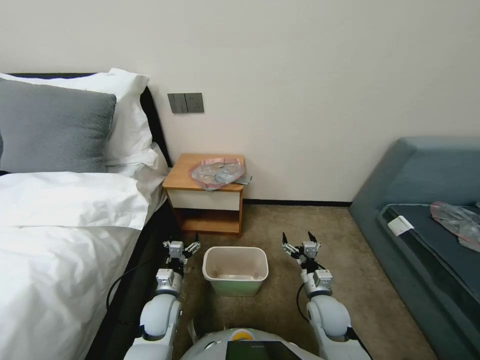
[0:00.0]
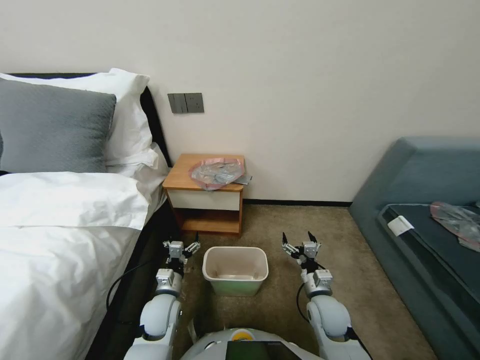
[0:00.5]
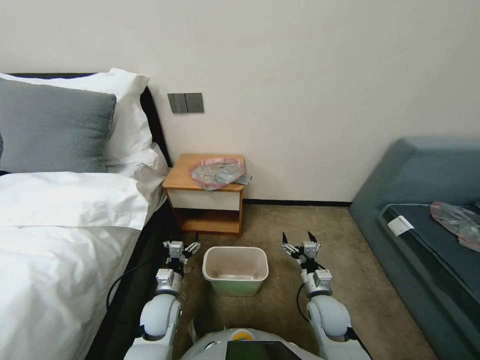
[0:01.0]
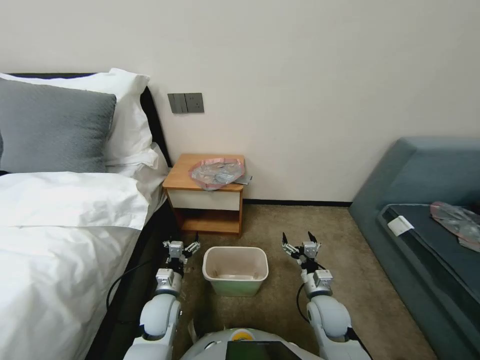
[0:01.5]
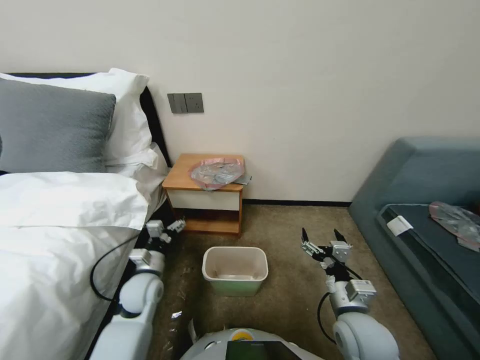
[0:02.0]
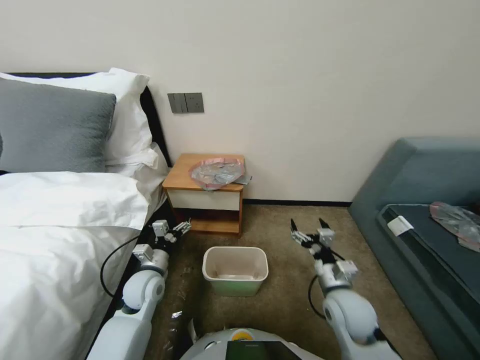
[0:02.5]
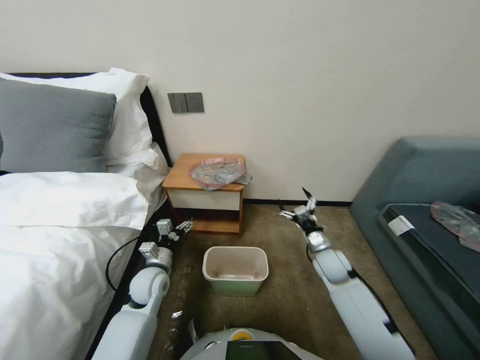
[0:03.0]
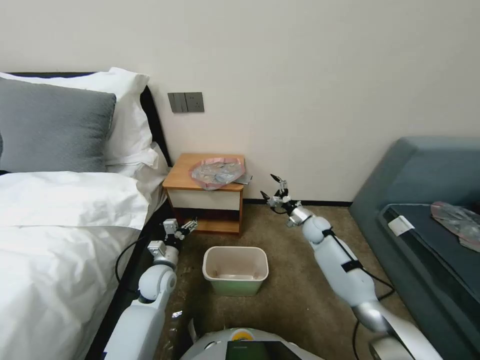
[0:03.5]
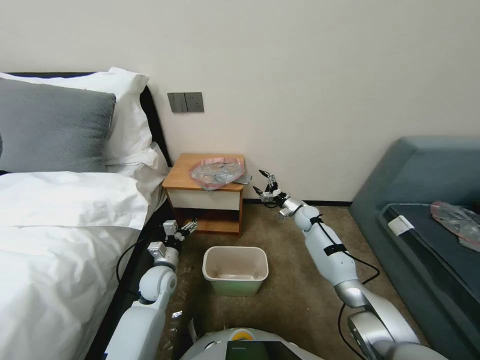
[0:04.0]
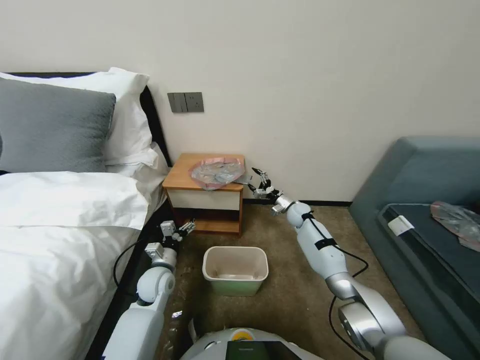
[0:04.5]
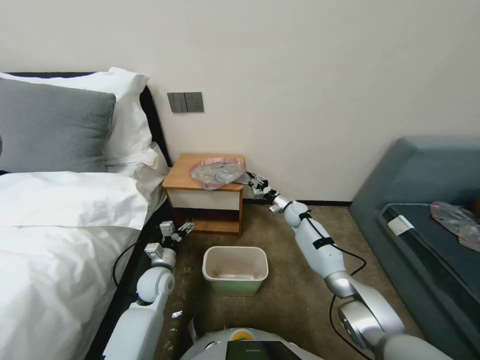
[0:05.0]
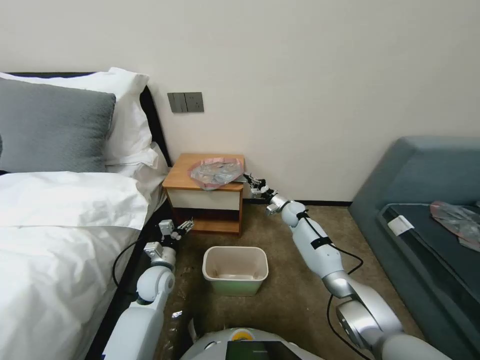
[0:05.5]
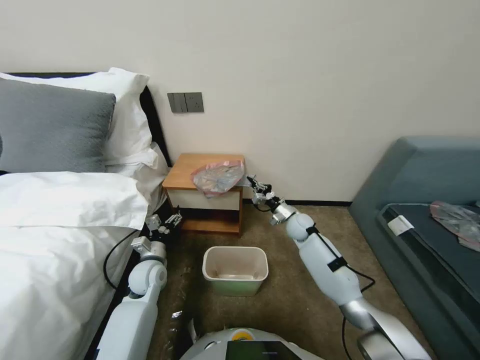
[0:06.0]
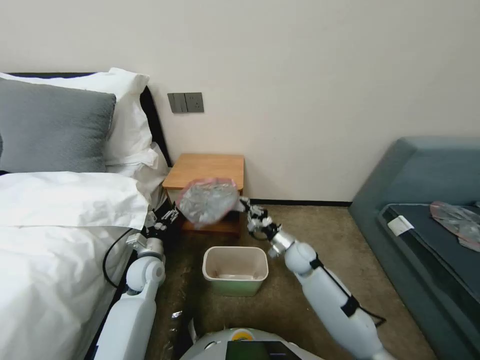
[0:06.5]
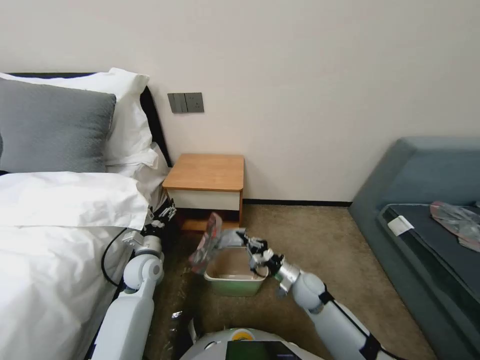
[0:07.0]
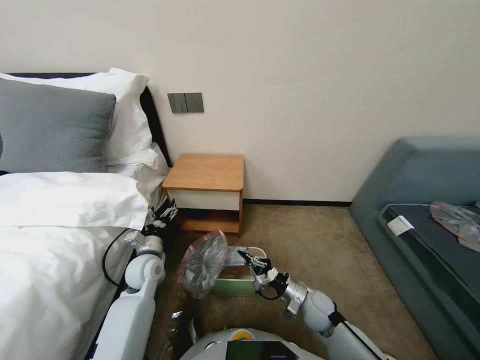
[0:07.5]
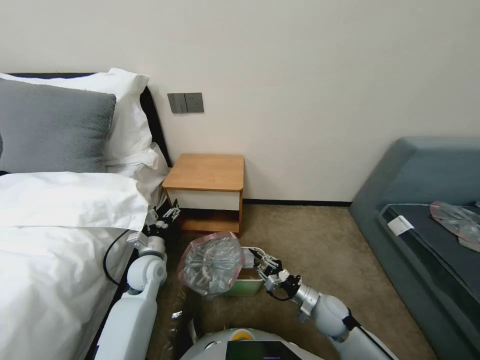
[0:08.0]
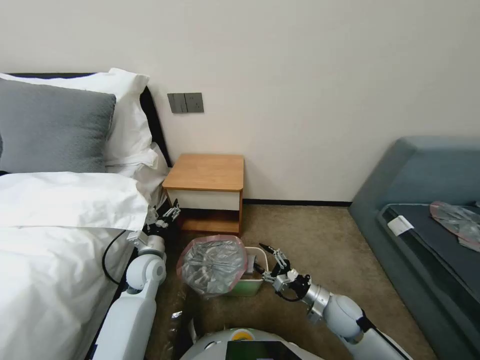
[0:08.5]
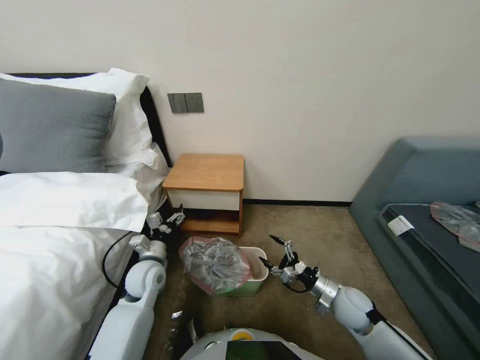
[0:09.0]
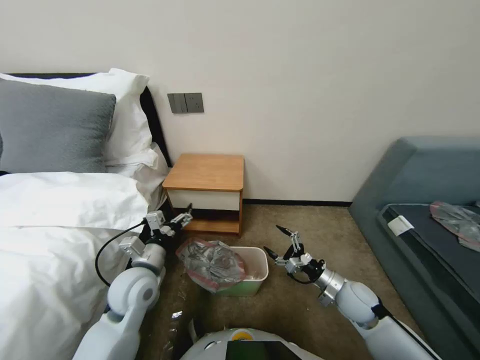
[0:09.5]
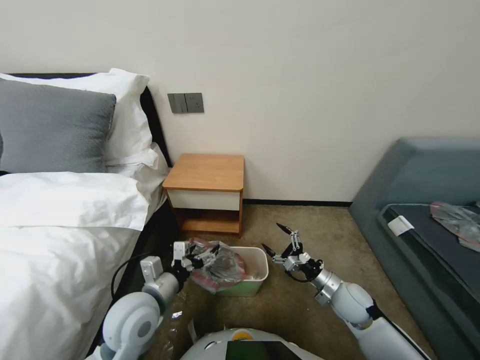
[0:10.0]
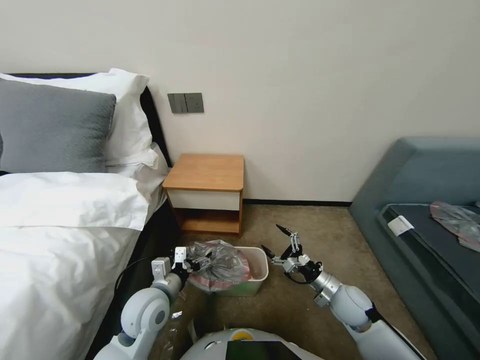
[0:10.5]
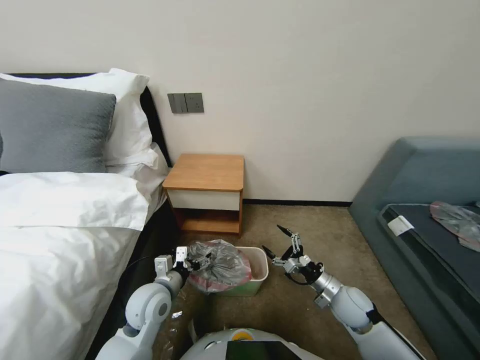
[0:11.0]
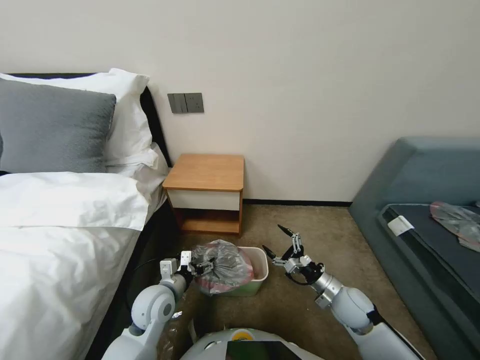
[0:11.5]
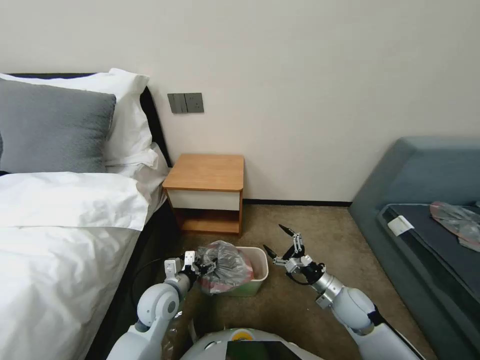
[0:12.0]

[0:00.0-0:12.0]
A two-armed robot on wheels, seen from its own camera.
Task of the whole recording: Pick up the garbage bag from the table and place it over the trash can.
0:02.0 to 0:04.0: The right gripper heads forward, covering roughly 35 cm.
0:04.0 to 0:06.0: The right gripper is displaced to the left by approximately 5 cm, and closes.
0:06.0 to 0:08.0: The right gripper is displaced backward by approximately 25 cm.
0:08.0 to 0:10.0: The right gripper travels to the right and upward by about 10 cm, and opens its fingers. The left gripper shifts roughly 15 cm backward, upward and to the right.
0:10.0 to 0:12.0: The left gripper shifts some 10 cm downward.

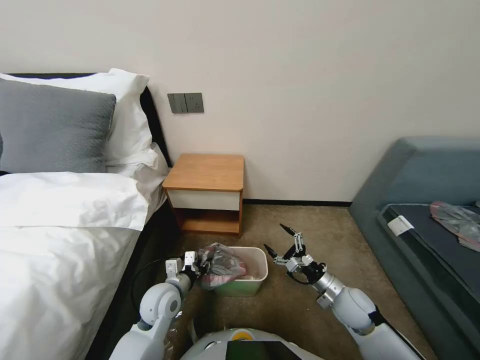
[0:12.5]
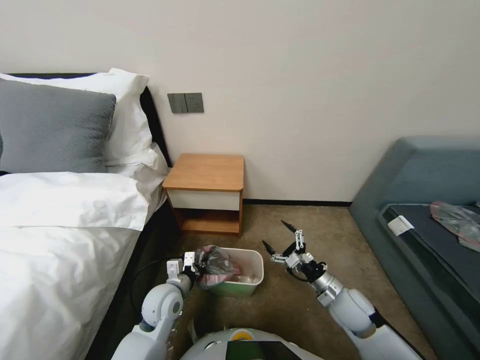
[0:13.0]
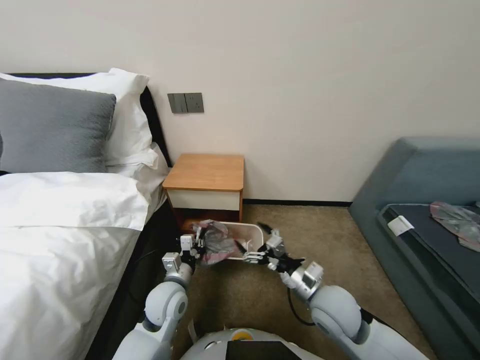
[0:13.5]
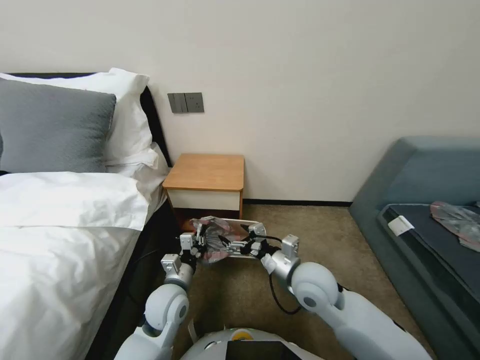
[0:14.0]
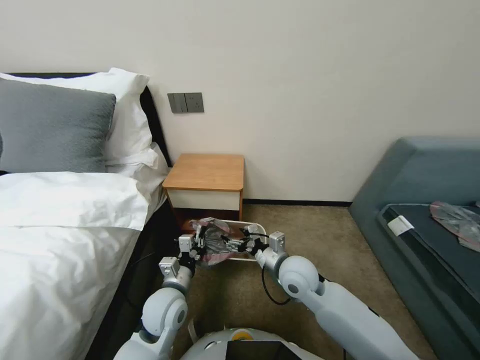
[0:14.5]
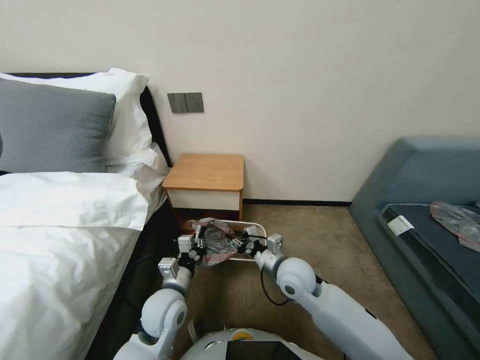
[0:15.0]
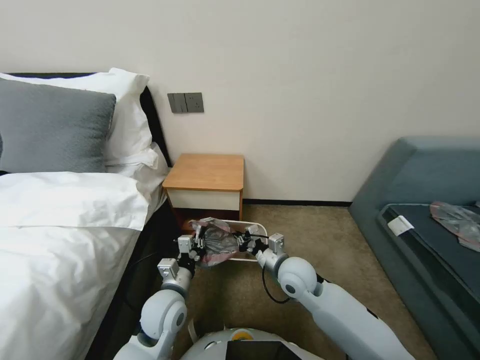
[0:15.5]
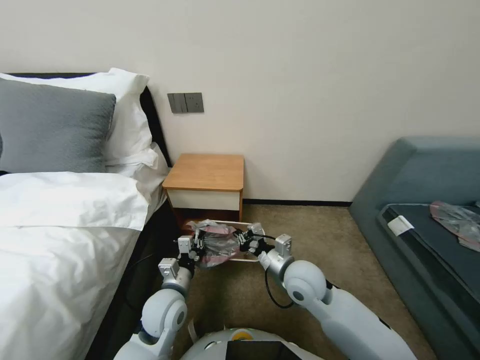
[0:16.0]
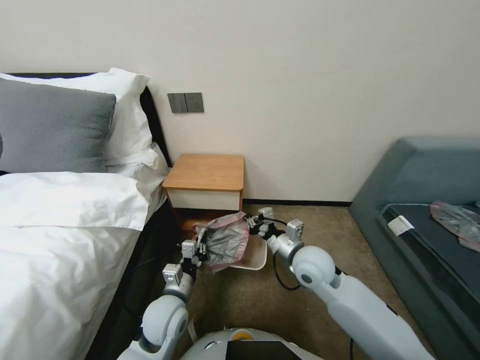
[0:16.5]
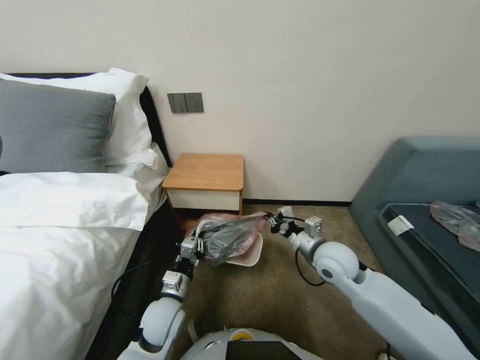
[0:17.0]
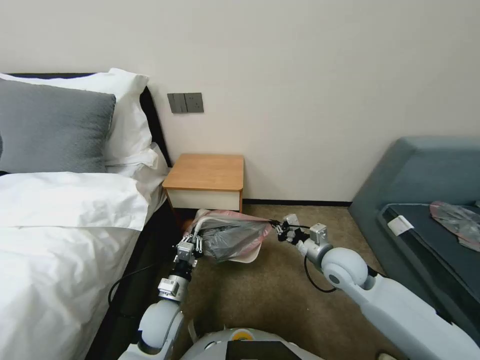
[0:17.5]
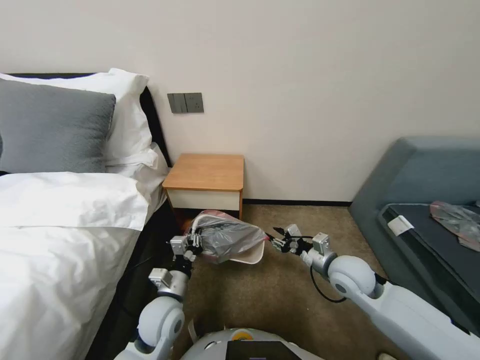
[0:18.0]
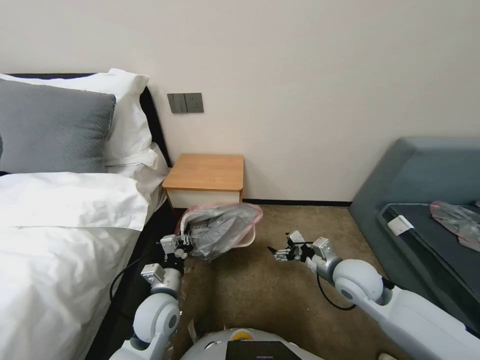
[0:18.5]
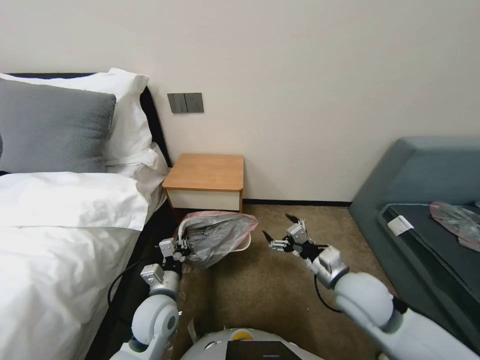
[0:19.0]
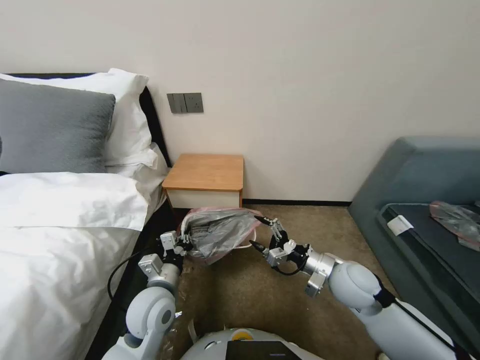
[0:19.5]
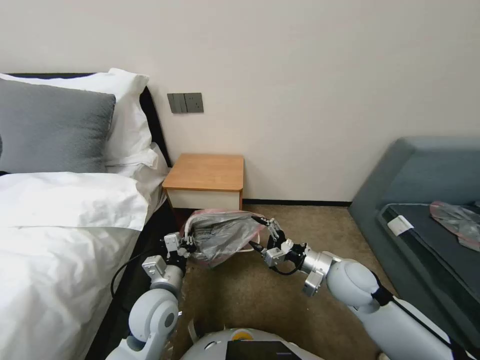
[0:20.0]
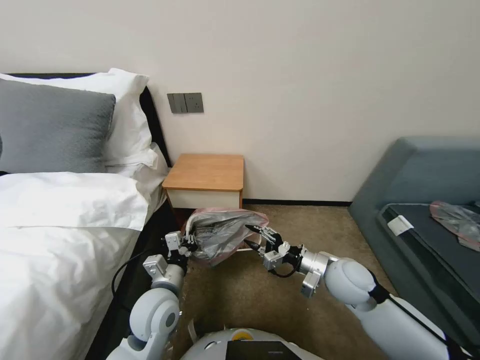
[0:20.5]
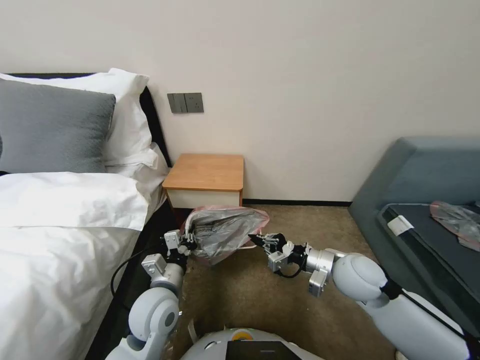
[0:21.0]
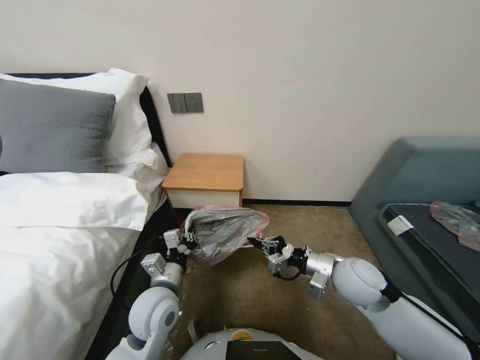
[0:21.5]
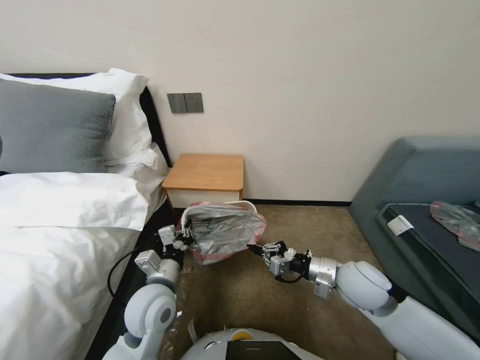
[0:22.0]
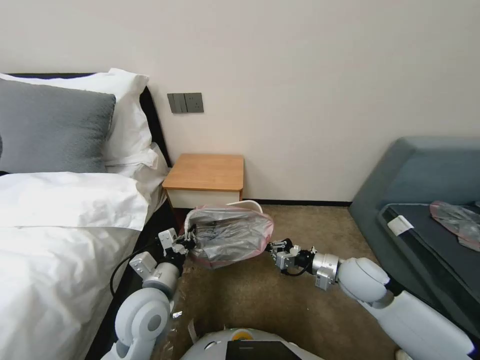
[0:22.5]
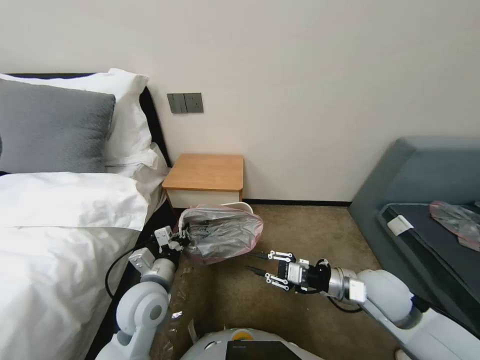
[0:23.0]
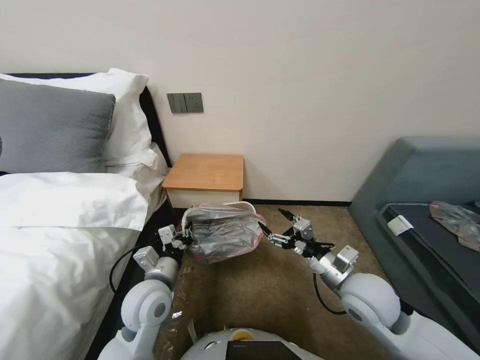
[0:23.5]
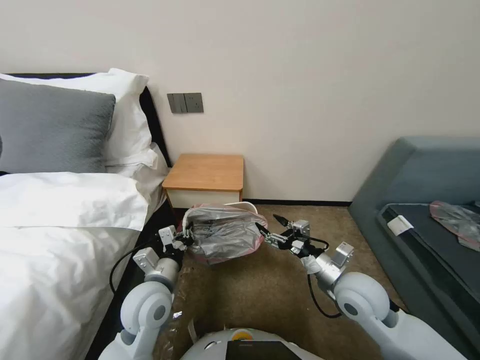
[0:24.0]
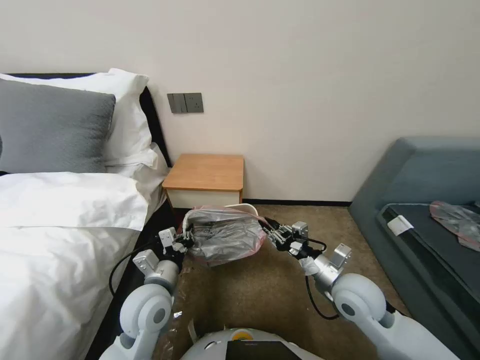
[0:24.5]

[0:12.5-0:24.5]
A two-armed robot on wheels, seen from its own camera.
Task of the whole recording: Pick up the garbage bag from the table and place it over the trash can.
0:12.5 to 0:14.5: The left gripper closes up, while the right gripper goes approximately 20 cm to the left and upward.
0:14.5 to 0:16.5: The right gripper closes.
0:16.5 to 0:18.5: The right gripper heads to the right, covering about 10 cm, and opens up.
0:20.5 to 0:22.5: The right gripper closes its fingers.
0:22.5 to 0:24.5: The right gripper ends up about 5 cm from where it was, and opens up.

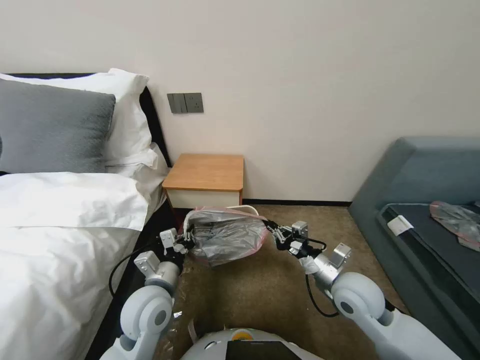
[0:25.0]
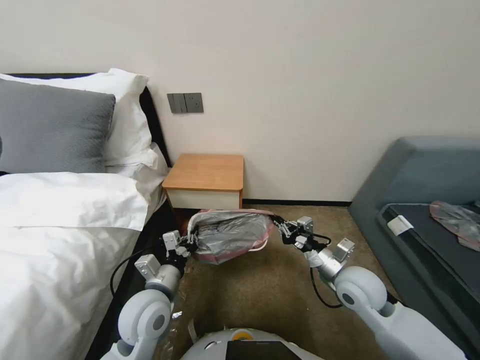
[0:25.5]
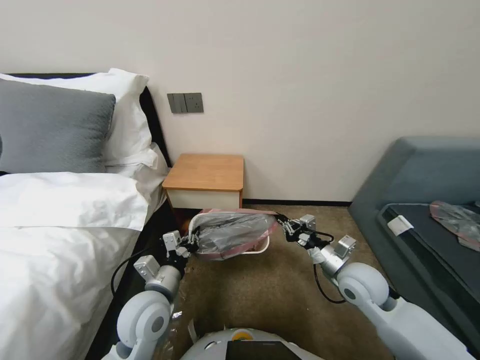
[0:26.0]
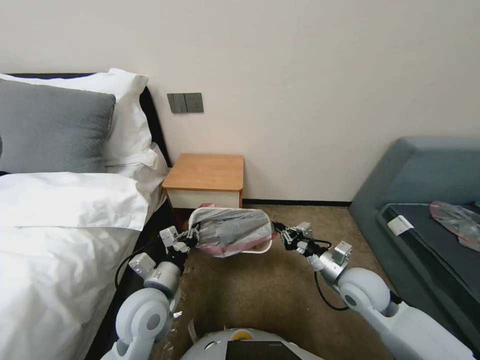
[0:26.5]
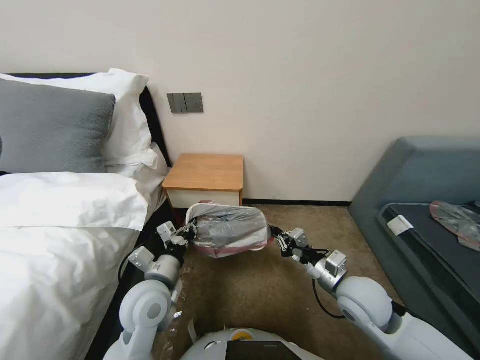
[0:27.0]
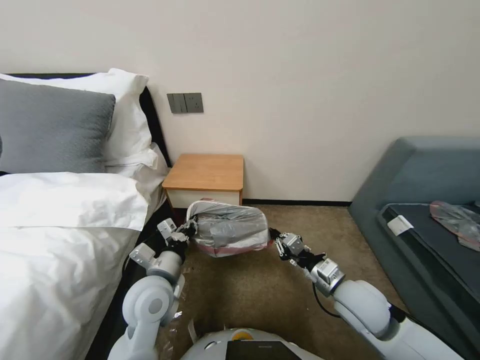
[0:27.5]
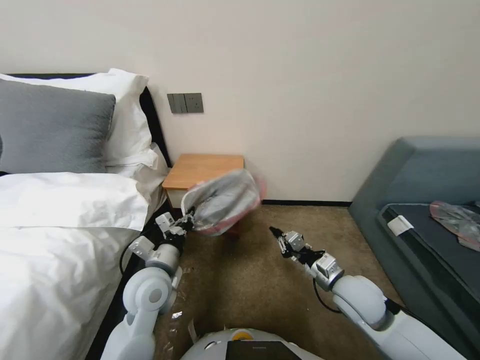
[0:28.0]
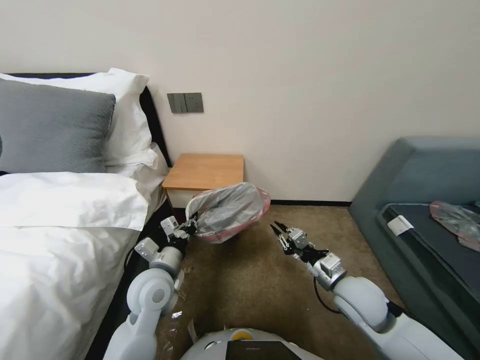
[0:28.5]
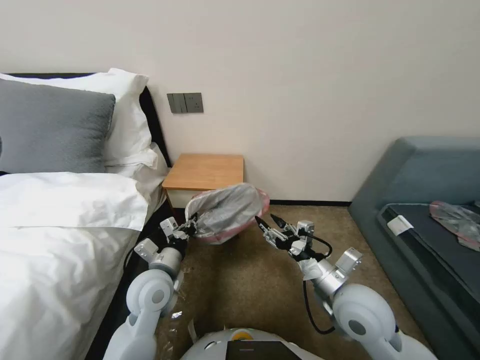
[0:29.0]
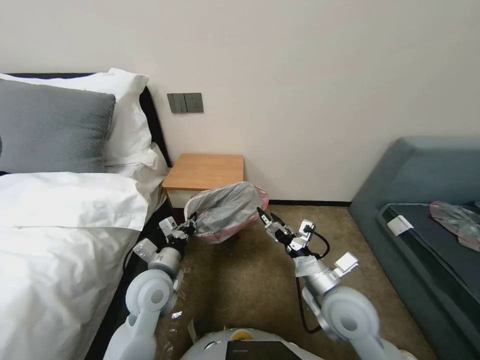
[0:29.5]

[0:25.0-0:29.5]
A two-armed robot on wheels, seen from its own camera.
Task of the whole recording: Pick up the garbage bag from the table and place it over the trash can.
0:25.0 to 0:27.0: The grippers move only a little.
0:27.0 to 0:29.5: The right gripper shifts by about 5 cm, and opens its fingers.
